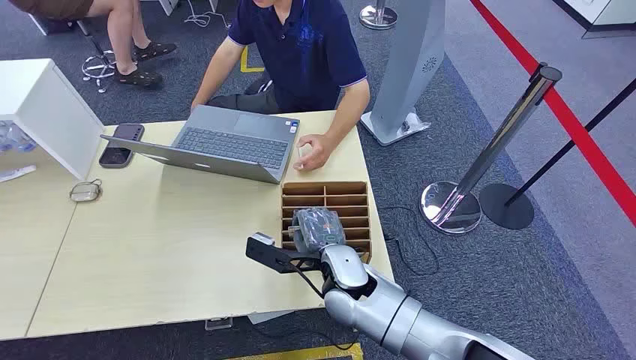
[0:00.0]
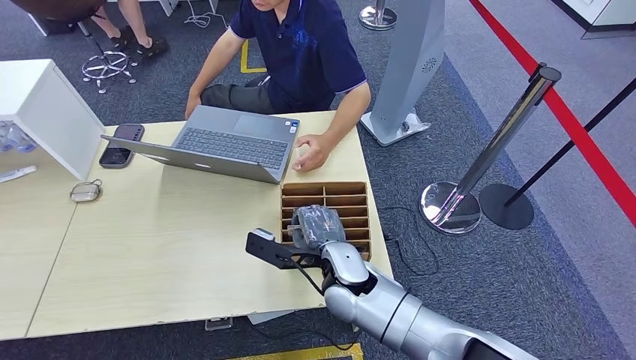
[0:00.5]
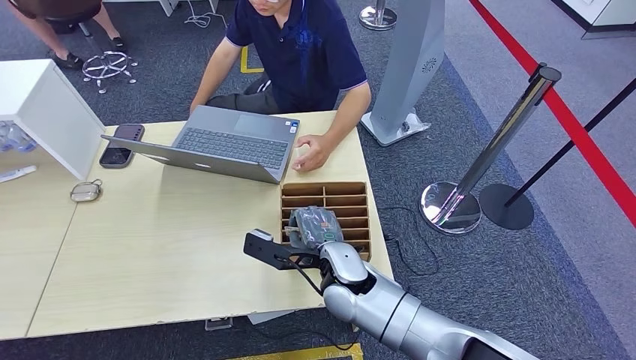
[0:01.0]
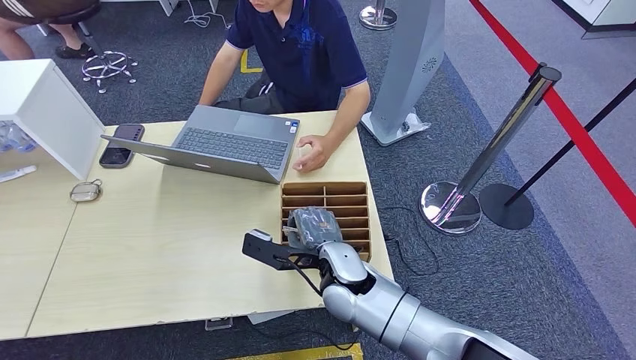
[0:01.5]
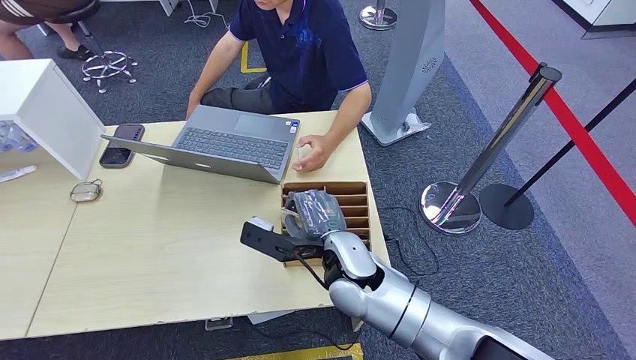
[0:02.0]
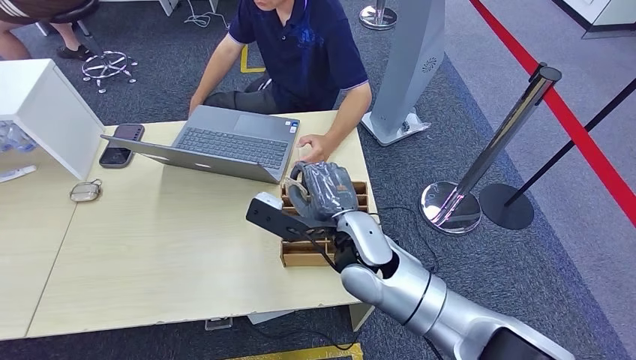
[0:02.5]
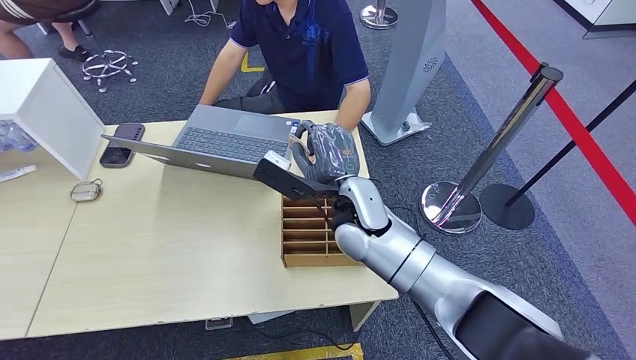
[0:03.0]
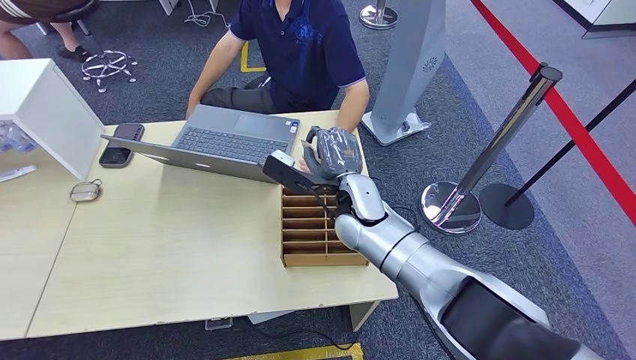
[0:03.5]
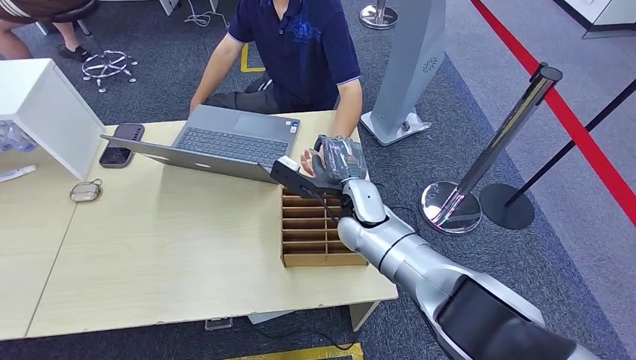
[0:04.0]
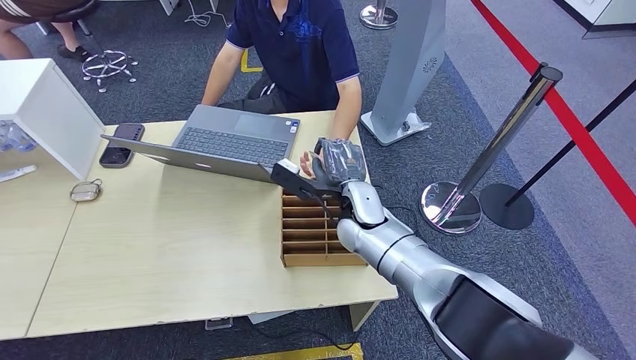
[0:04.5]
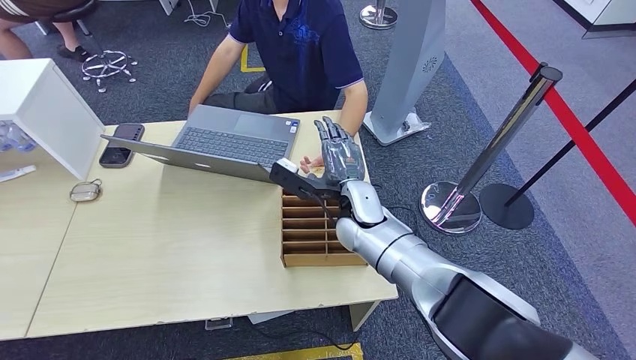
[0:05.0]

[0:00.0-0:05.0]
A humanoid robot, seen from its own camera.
Step, 0:00.0 to 0:02.0: Pick up the key card from the card box.
Step, 0:04.5 to 0:05.0: Hand the key card to the target.
0:02.5 to 0:05.0: Both hands move forward, some 5 cm.
